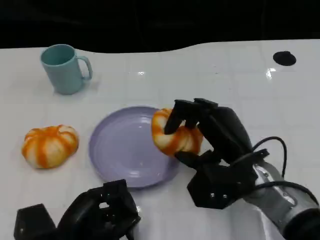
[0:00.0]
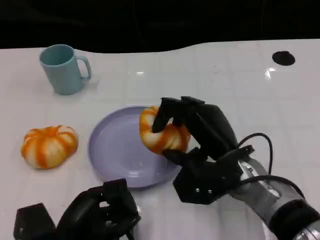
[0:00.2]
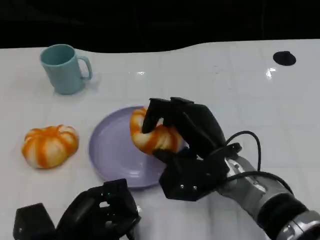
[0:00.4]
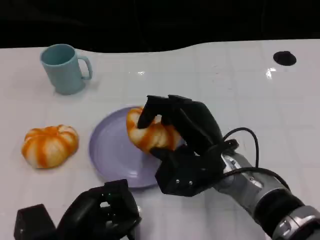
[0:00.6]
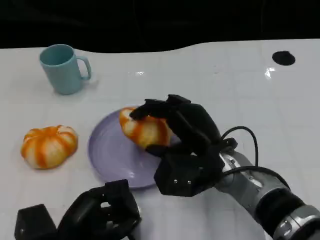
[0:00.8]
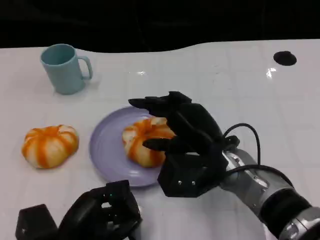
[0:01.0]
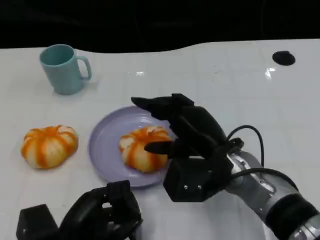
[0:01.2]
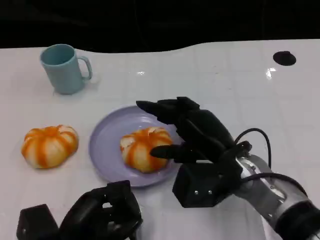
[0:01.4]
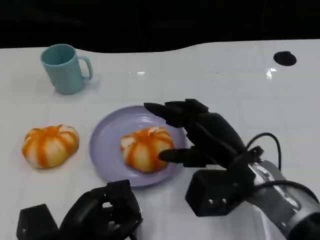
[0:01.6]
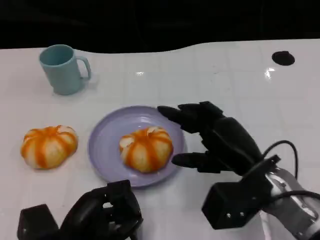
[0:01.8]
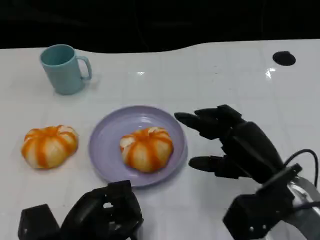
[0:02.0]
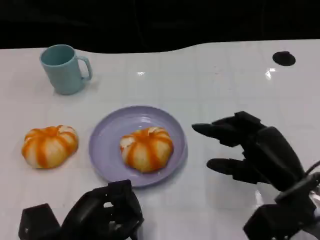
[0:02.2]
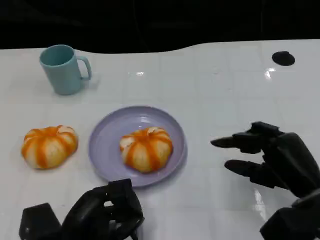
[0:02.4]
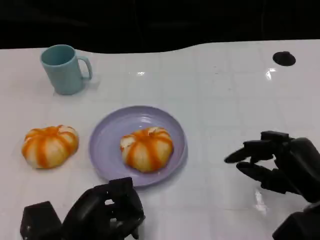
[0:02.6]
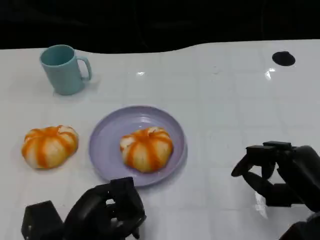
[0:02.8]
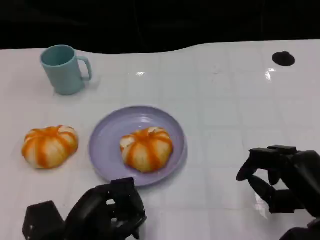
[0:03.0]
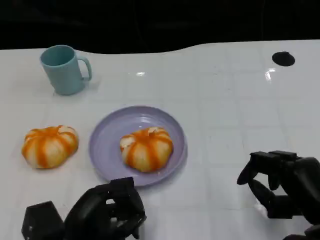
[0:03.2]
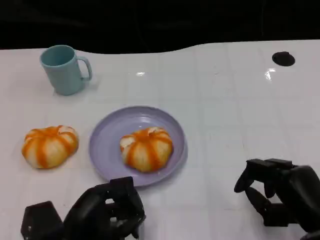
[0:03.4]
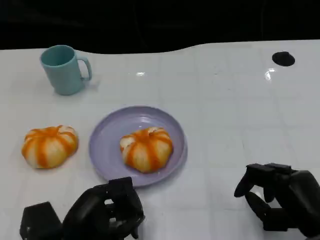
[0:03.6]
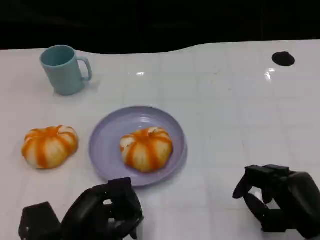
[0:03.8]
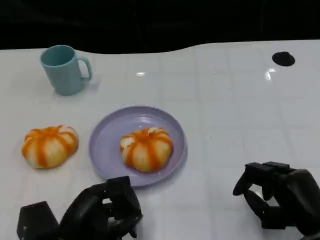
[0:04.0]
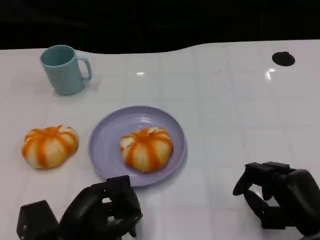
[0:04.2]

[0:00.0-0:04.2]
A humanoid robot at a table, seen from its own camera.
Task of the whole recording: Grasp the bread from the table and place it into the plate.
0:00.0 to 0:01.4: The hands make only small movements.
0:01.4 to 0:02.8: The right hand goes approximately 15 cm to the right and backward.
0:02.8 to 0:04.2: The hands move only a little.

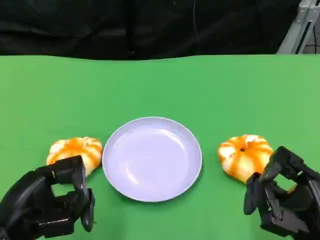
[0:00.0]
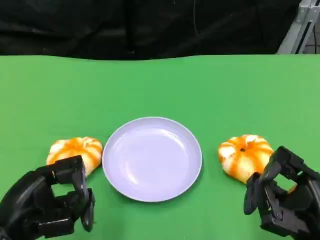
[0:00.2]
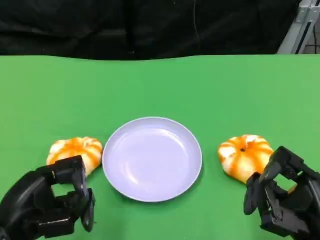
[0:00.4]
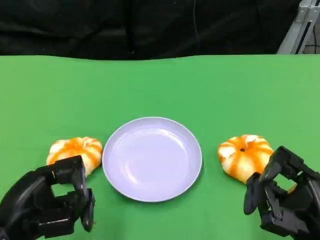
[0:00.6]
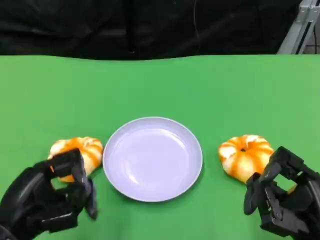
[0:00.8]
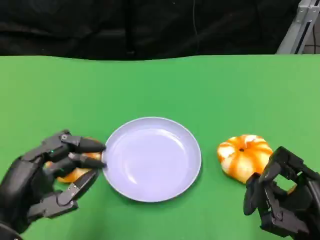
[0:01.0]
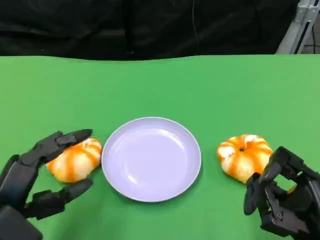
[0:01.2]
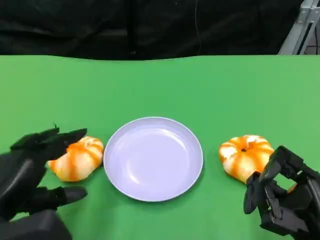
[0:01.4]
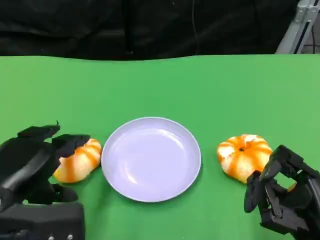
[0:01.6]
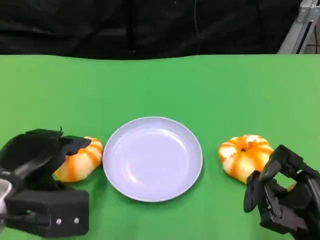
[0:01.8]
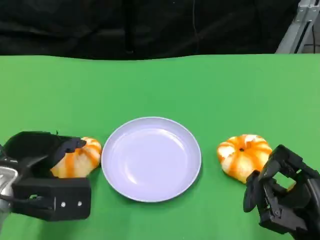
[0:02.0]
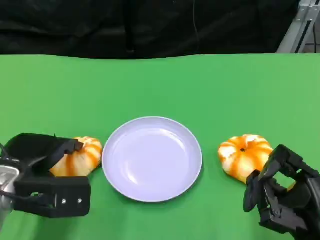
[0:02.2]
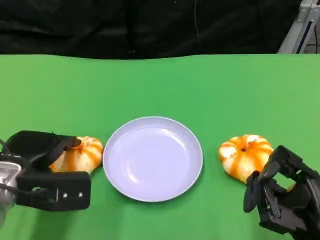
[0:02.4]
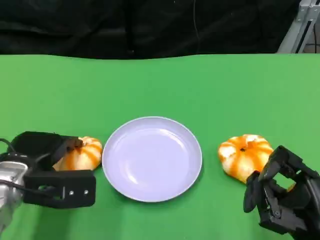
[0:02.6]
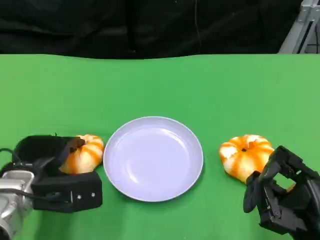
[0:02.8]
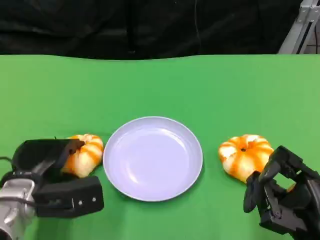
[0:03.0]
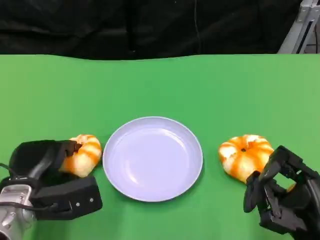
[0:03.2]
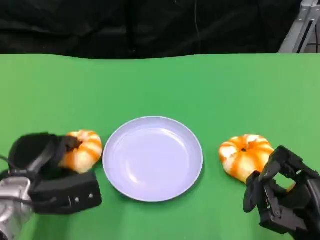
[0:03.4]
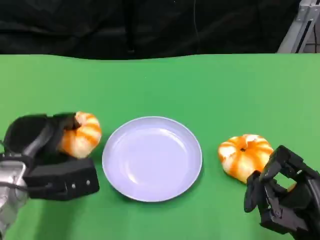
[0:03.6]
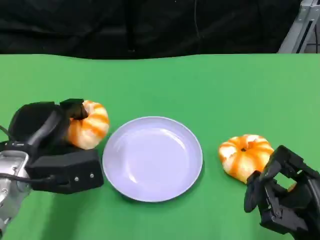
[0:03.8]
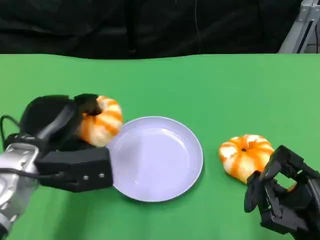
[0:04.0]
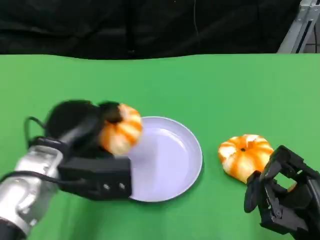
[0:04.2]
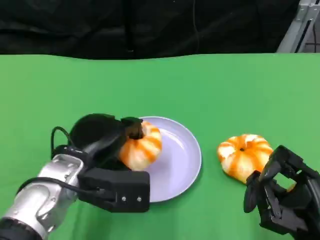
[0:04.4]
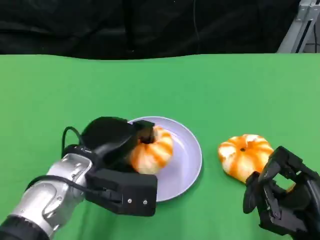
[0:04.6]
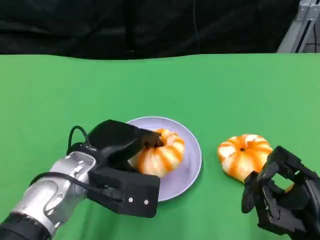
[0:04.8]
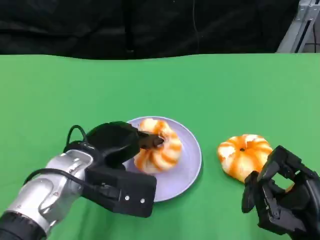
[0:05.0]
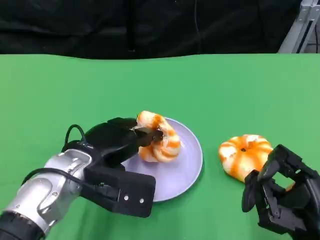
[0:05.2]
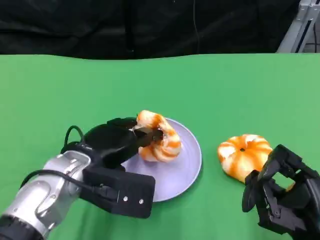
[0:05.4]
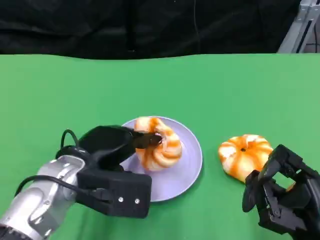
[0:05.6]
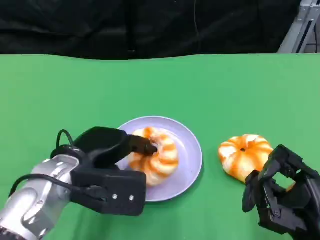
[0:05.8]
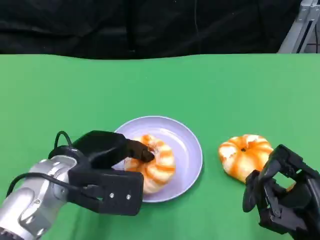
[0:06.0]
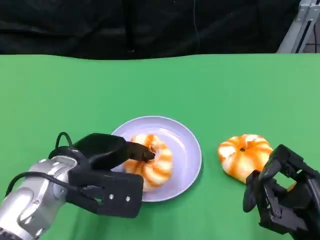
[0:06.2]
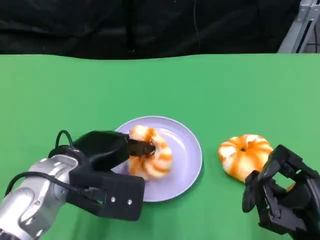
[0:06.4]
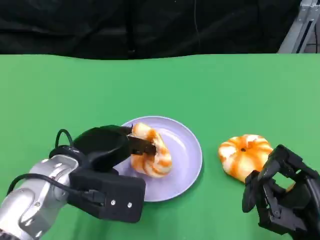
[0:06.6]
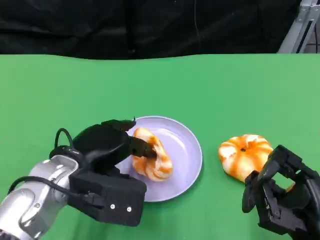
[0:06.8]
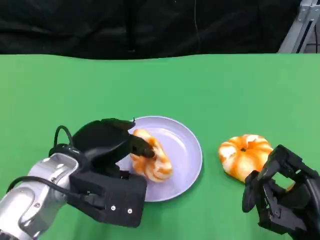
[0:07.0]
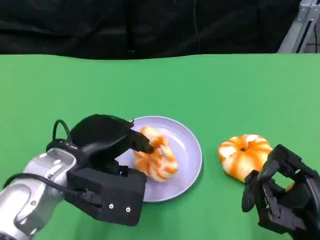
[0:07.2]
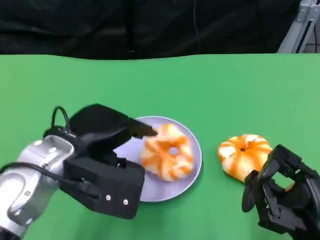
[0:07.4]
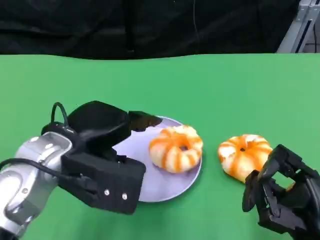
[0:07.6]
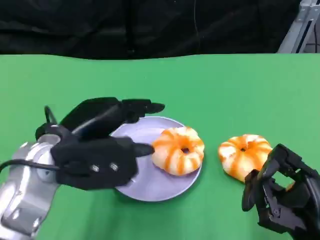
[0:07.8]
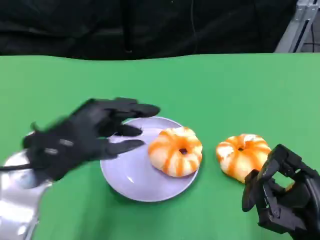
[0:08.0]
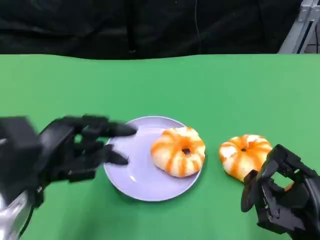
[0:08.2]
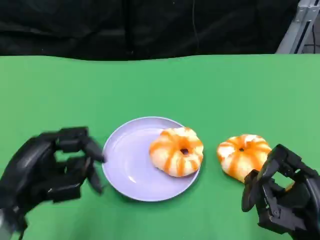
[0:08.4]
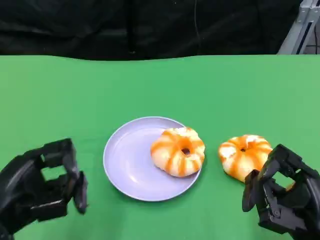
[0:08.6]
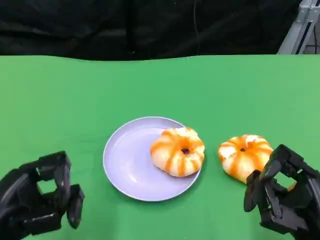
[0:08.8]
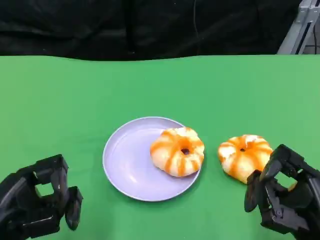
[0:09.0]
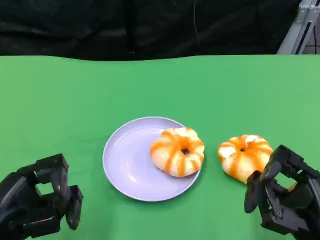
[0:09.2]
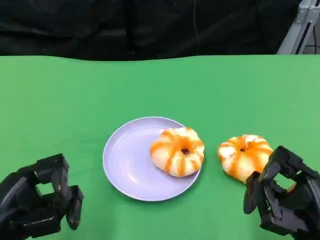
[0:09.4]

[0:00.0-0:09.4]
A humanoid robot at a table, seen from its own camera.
Task of the whole recording: Grasp the bread from the table and place it into the plate.
0:01.6 to 0:03.2: The left hand shifts approximately 10 cm downward and forward.
0:03.2 to 0:04.8: The left hand is displaced to the right and upward by roughly 10 cm.
0:04.8 to 0:06.2: The hands move only a little.
0:07.8 to 0:09.4: The left hand is displaced to the left, backward and downward by some 15 cm.

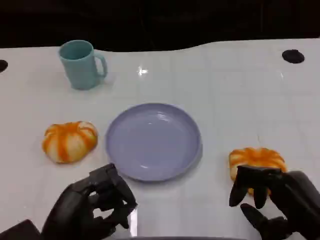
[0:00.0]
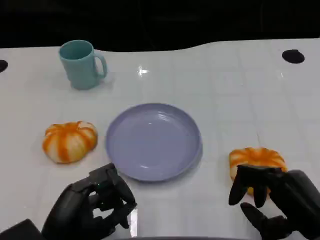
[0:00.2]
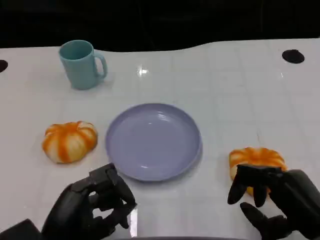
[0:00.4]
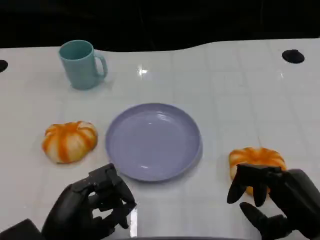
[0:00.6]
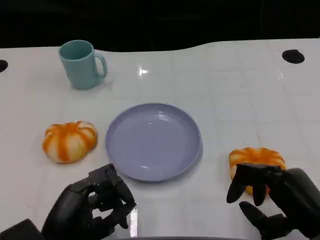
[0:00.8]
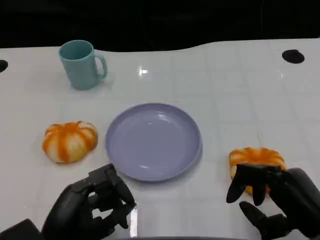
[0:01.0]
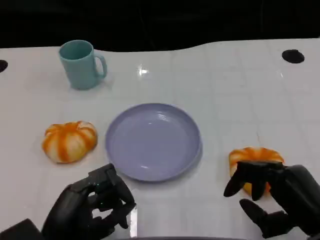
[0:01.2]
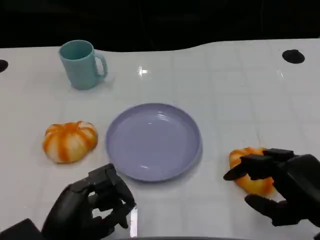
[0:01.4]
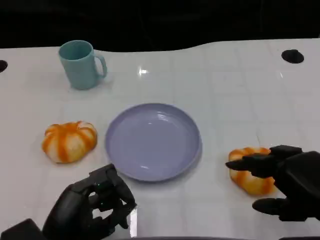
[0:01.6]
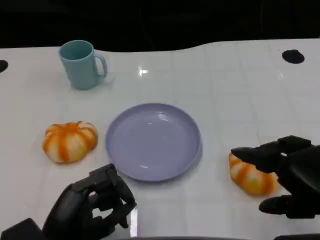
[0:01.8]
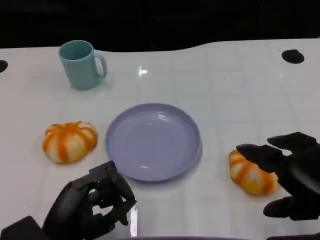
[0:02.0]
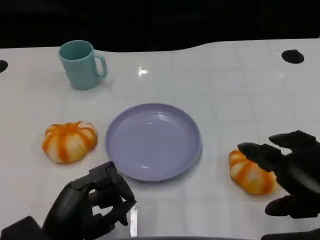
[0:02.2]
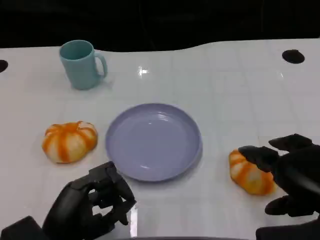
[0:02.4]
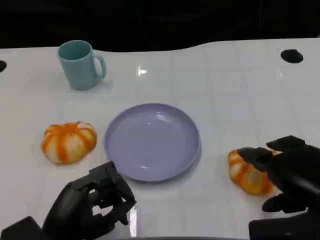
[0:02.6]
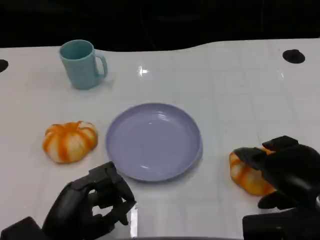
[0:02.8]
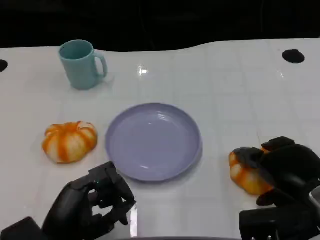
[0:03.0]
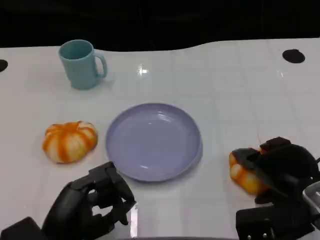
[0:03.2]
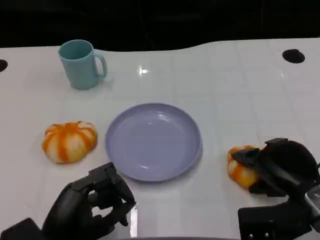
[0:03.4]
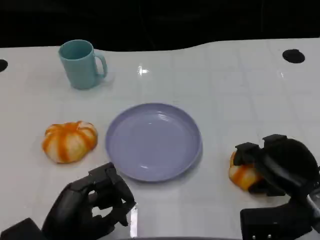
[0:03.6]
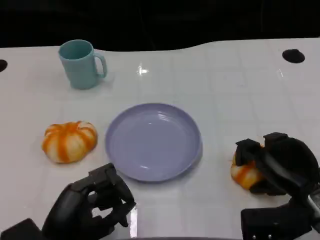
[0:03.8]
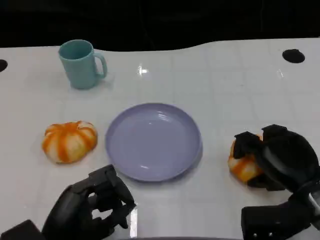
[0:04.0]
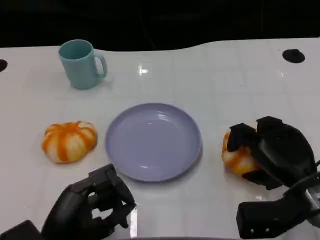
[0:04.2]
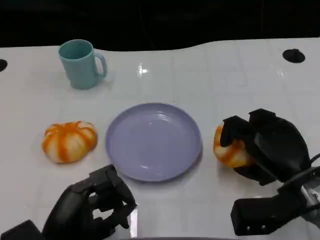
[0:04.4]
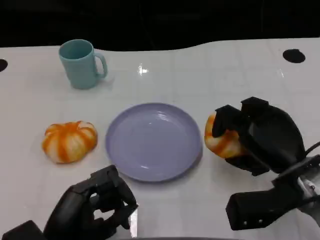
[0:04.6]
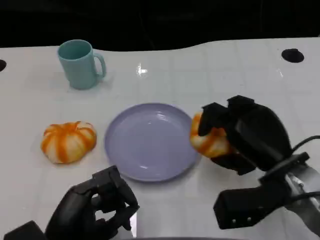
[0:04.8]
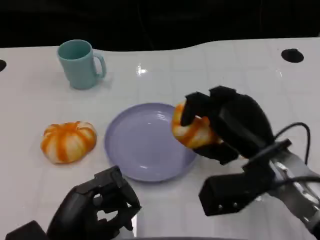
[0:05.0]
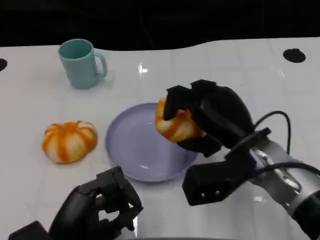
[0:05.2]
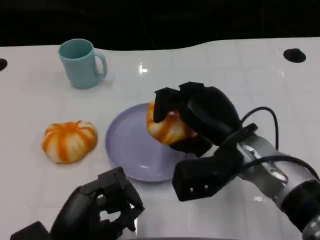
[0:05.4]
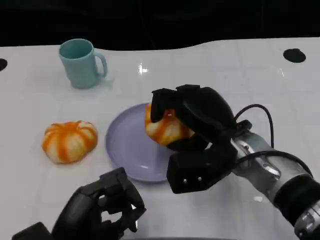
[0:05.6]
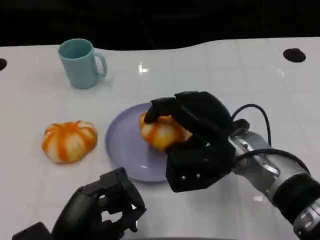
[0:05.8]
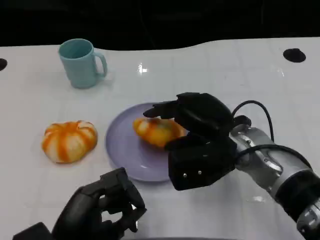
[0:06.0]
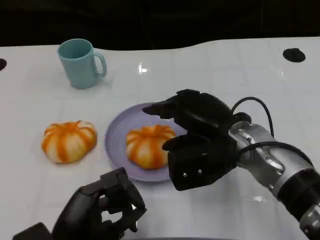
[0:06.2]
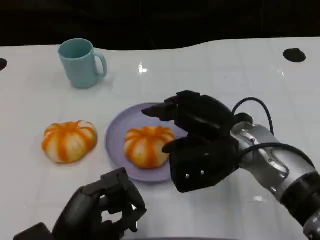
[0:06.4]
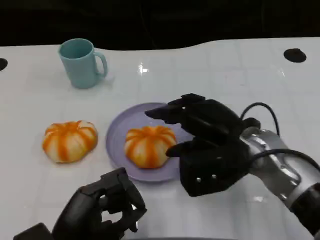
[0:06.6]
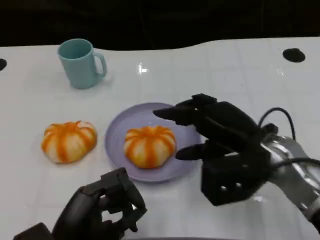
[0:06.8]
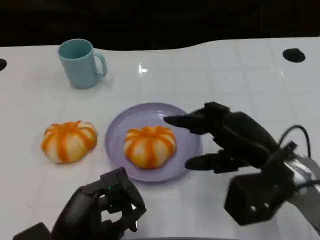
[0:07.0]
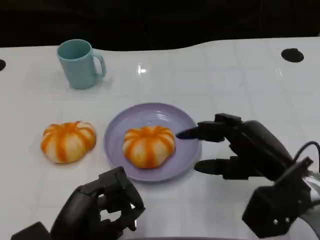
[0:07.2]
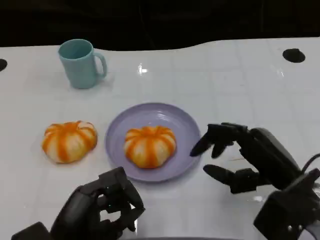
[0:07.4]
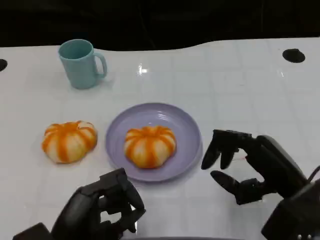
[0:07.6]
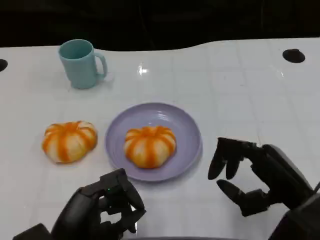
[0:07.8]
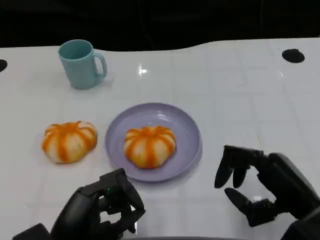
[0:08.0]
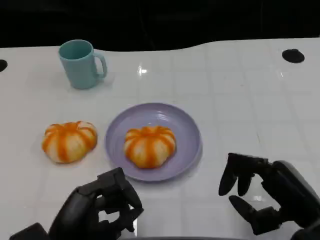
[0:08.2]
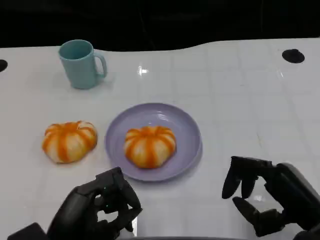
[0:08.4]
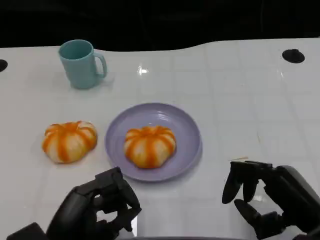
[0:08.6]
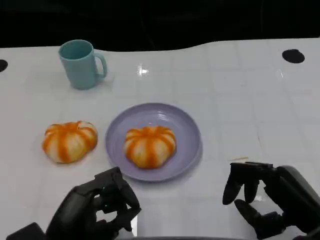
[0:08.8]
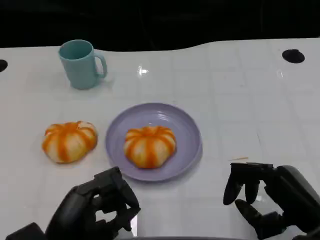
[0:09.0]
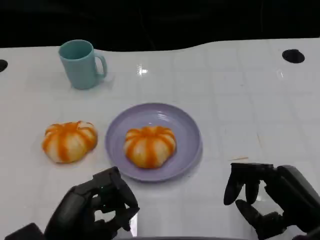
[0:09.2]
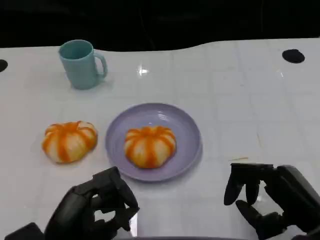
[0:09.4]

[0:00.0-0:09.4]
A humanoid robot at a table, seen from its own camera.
Task of the whole recording: Grasp the bread from the table and place it into the plate.
0:00.0 to 0:01.6: The right hand goes roughly 5 cm upward.
0:01.6 to 0:03.2: The right hand goes roughly 10 cm forward and downward.
0:03.2 to 0:04.8: The right hand shifts by some 5 cm.
0:04.8 to 0:06.2: The right hand shifts roughly 5 cm to the left.
0:06.2 to 0:07.8: The right hand is displaced to the right and backward by roughly 15 cm.
0:07.8 to 0:09.4: There are only small adjustments of the hands.
